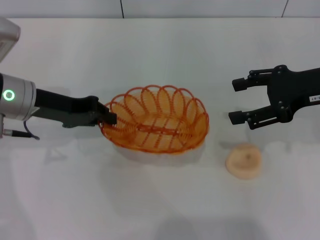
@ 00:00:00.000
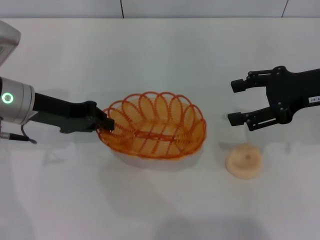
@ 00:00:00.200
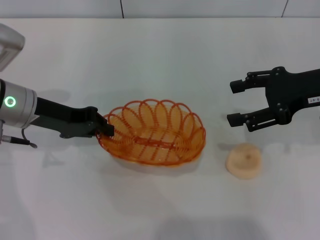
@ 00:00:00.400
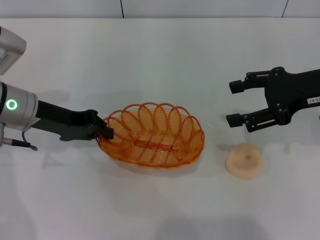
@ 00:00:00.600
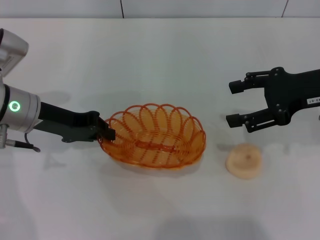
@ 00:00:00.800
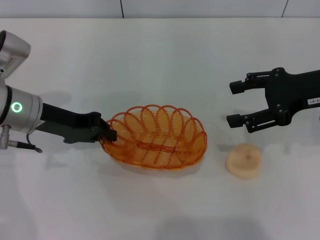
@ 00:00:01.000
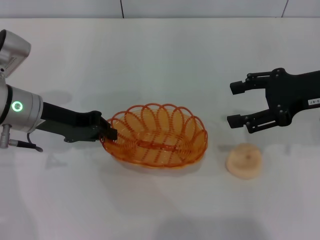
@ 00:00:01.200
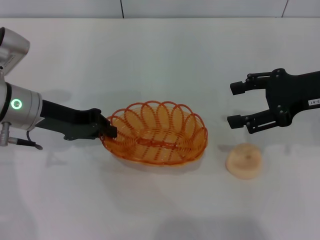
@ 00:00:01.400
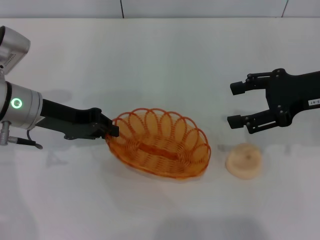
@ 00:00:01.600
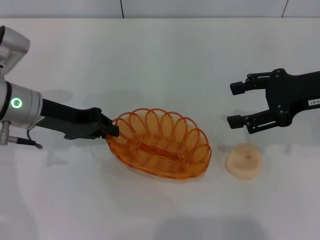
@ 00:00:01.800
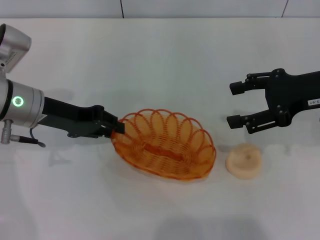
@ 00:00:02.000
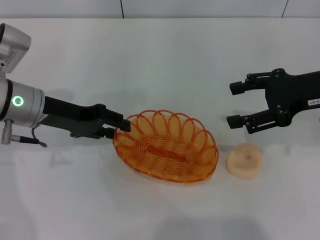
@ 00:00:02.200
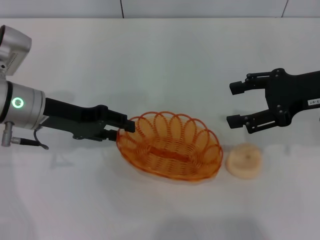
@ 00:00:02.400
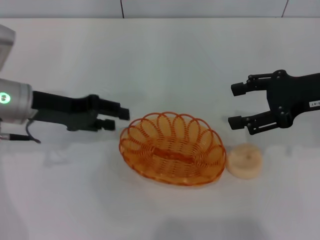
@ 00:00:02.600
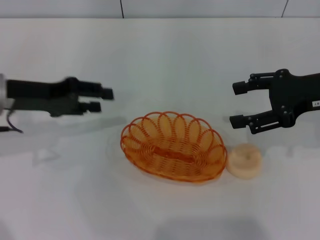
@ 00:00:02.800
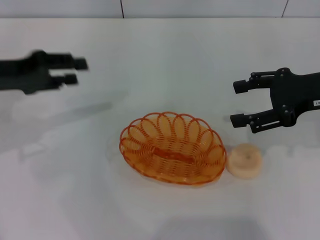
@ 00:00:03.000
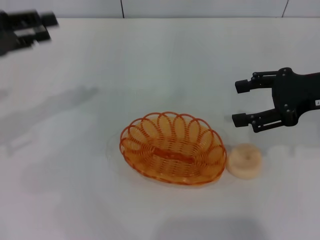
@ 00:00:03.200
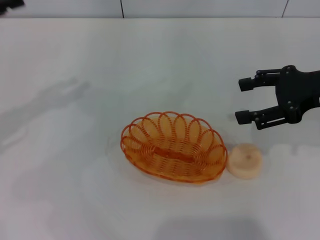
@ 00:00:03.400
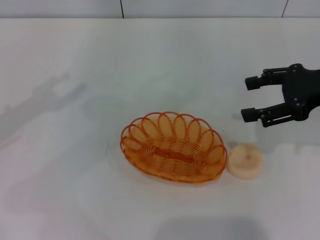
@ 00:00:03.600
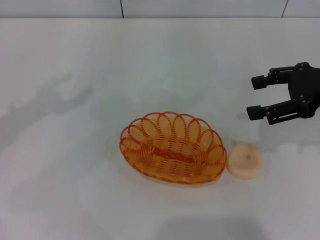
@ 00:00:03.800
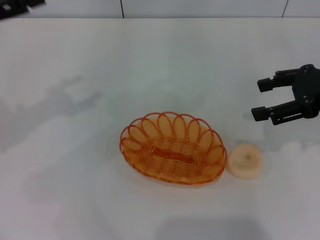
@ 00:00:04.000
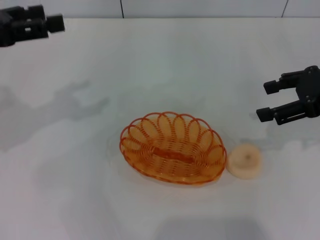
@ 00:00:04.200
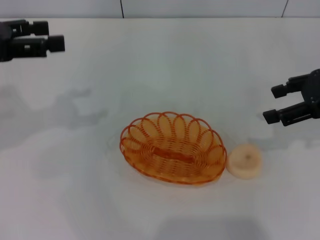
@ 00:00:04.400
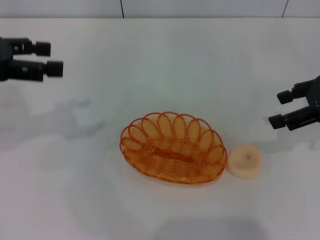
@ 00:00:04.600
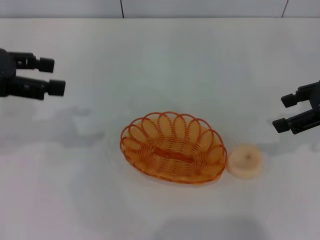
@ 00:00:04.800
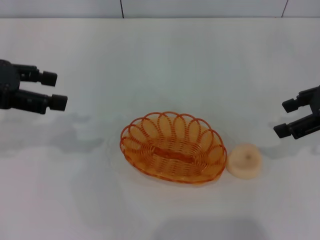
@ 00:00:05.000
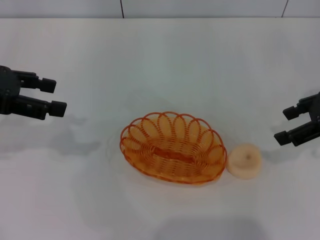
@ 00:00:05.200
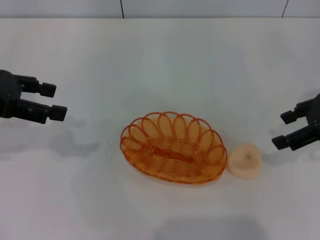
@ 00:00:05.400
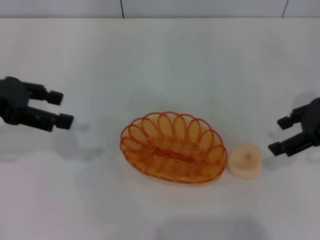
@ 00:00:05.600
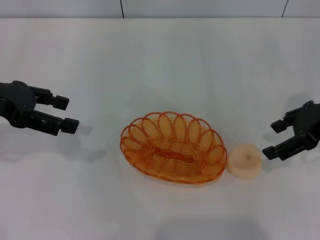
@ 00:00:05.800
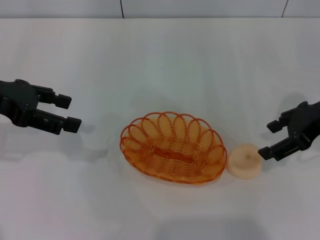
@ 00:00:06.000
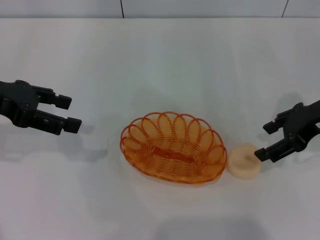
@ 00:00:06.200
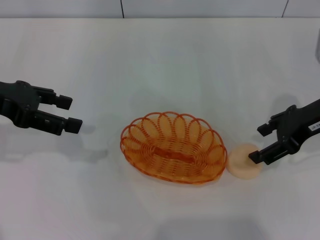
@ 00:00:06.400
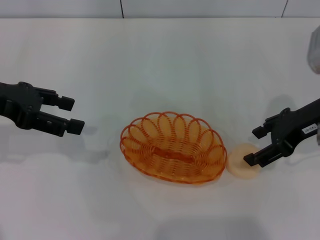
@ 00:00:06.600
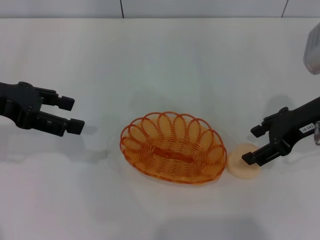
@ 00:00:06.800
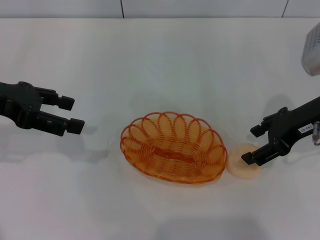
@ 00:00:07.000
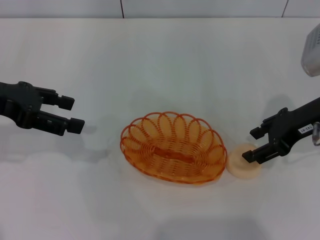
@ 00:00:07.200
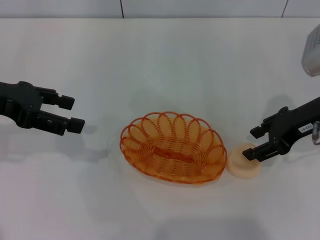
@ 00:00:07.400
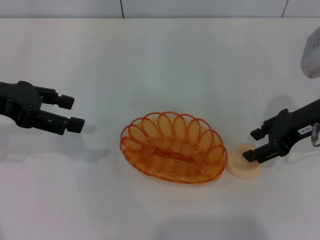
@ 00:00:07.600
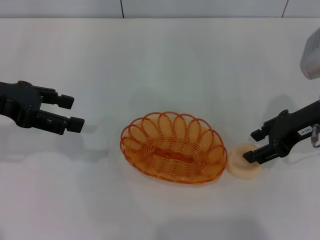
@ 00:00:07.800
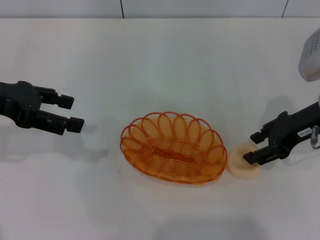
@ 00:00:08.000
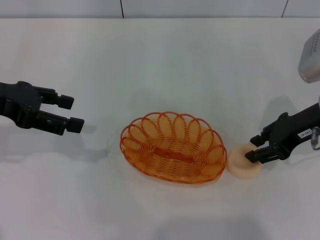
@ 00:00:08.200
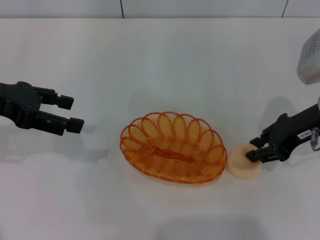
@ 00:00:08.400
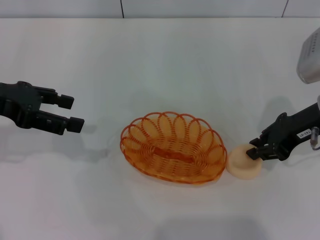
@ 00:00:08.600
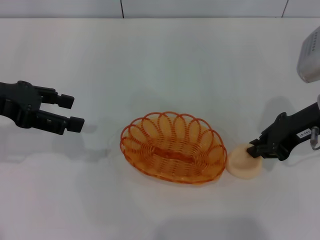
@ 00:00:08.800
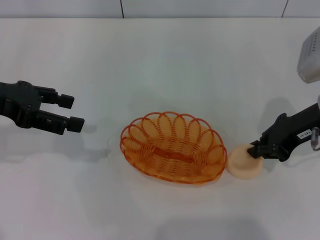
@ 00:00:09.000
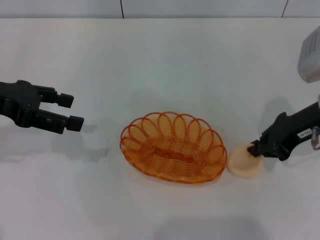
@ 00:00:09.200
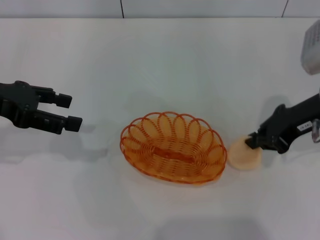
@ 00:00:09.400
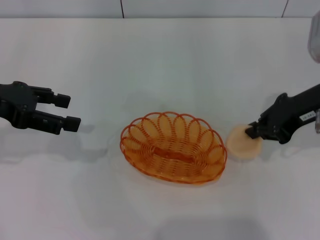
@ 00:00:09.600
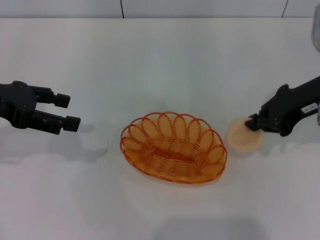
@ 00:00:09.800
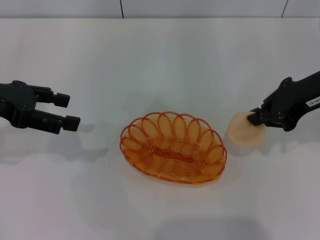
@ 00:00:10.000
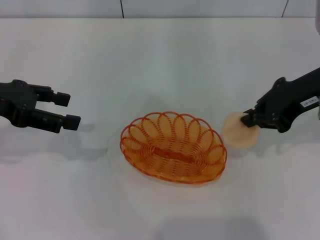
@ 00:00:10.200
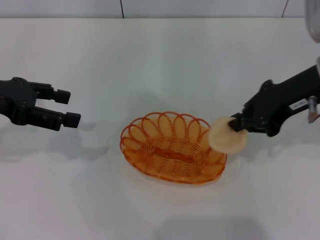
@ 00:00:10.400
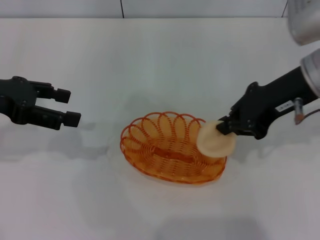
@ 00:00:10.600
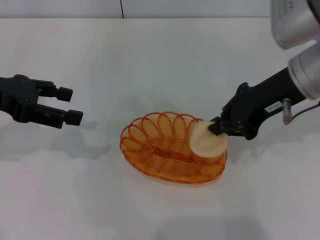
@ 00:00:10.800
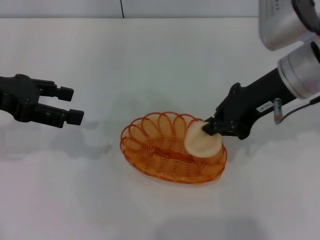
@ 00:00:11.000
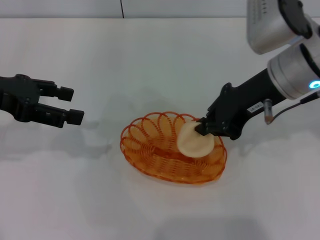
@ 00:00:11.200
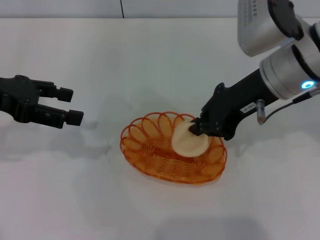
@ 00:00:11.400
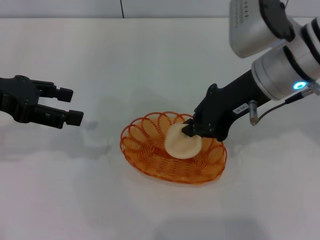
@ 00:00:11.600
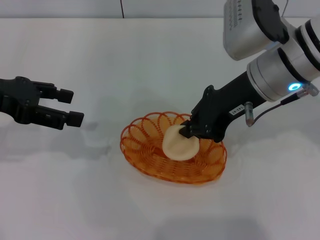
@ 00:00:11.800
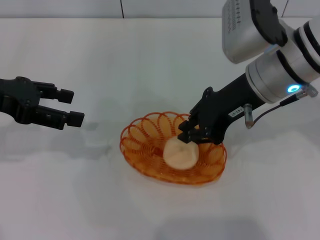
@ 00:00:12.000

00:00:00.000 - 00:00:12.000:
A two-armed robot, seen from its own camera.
Step, 00:00:00.000 - 00:00:04.200: Place the basket in the center of view with the left gripper.
Step, 00:00:04.400 - 00:00:09.200: Pick up the egg yolk pastry with the right gripper.
00:00:00.000 - 00:00:01.600: There are only small adjustments of the grippers.
00:00:01.600 - 00:00:03.000: The left gripper is displaced to the left and upward by roughly 10 cm, and opens.
00:00:03.000 - 00:00:04.400: The left gripper shifts some 5 cm upward, and opens its fingers.
00:00:06.000 - 00:00:07.600: The grippers stay close to where they were, moving slightly.
00:00:07.600 - 00:00:09.000: The right gripper closes up.
00:00:09.000 - 00:00:10.400: The right gripper moves upward, roughly 5 cm.
00:00:10.400 - 00:00:12.000: The right gripper moves to the left, approximately 10 cm.

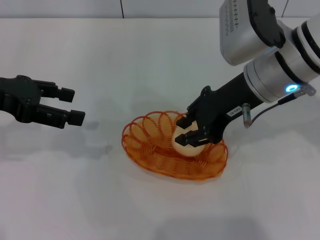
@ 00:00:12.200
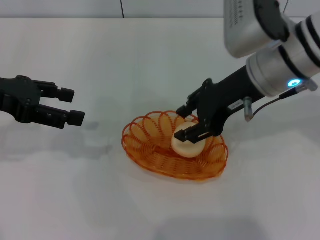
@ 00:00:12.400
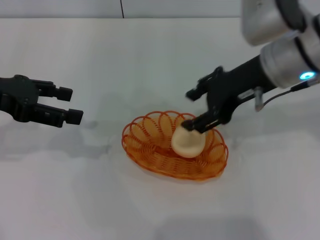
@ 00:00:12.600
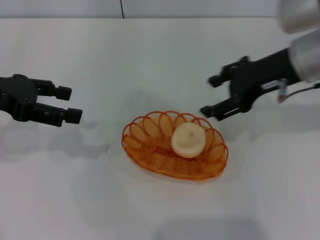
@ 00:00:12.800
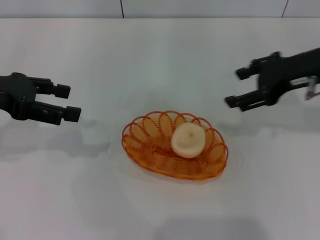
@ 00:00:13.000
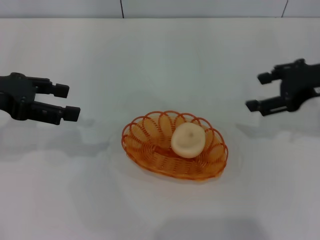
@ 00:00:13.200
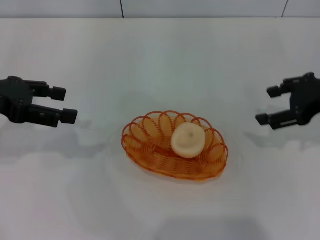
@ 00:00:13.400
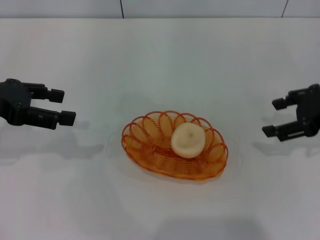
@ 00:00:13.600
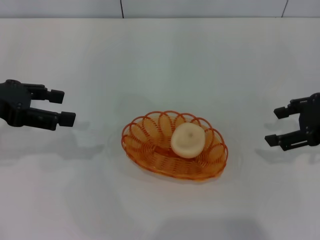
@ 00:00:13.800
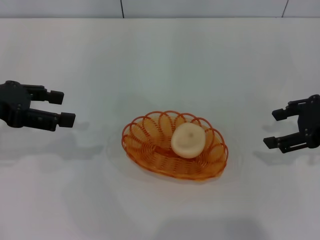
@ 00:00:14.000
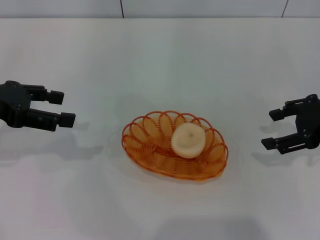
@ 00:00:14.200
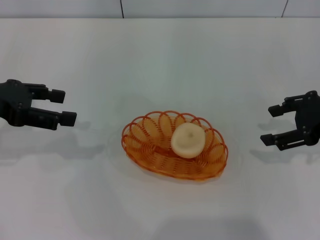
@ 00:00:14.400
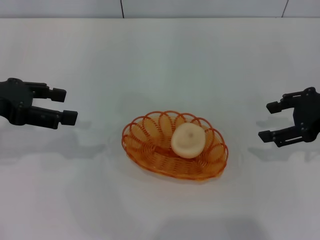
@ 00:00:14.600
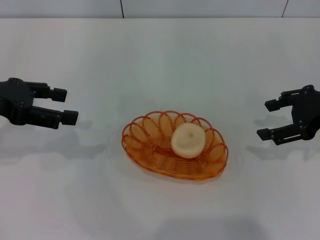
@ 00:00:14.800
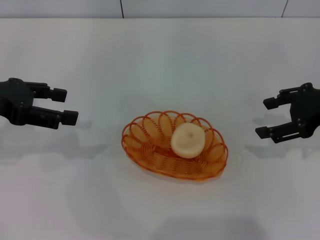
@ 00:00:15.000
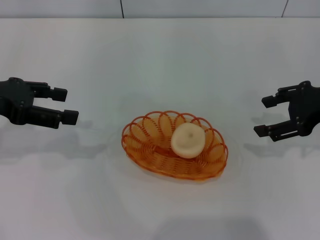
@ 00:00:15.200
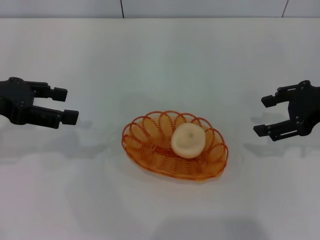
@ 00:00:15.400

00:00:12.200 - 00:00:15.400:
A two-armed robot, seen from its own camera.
00:00:12.200 - 00:00:13.800: The right gripper moves to the right, about 15 cm, and opens its fingers.
00:00:13.800 - 00:00:15.400: The grippers move only a little.
